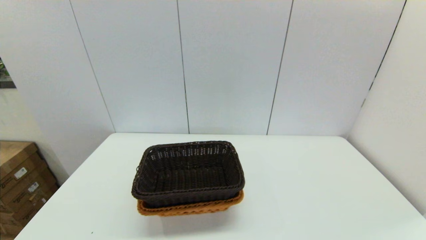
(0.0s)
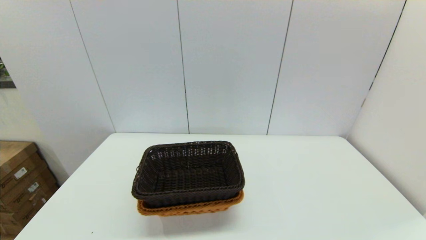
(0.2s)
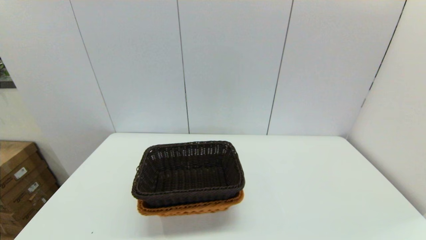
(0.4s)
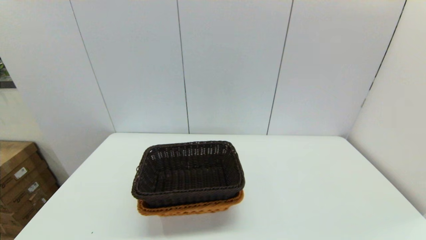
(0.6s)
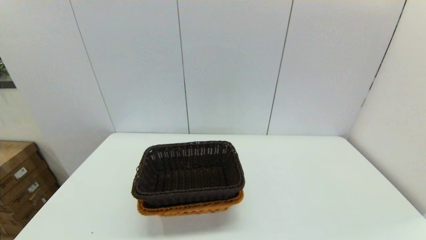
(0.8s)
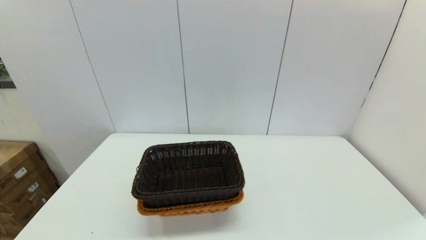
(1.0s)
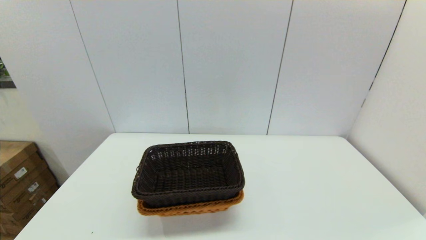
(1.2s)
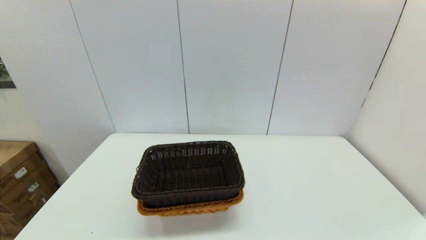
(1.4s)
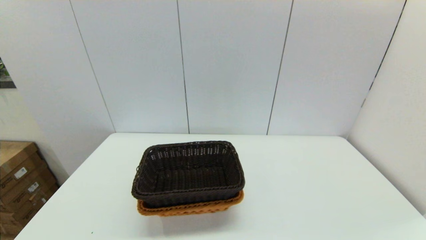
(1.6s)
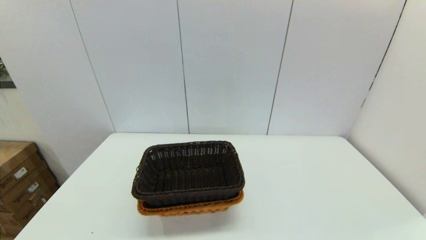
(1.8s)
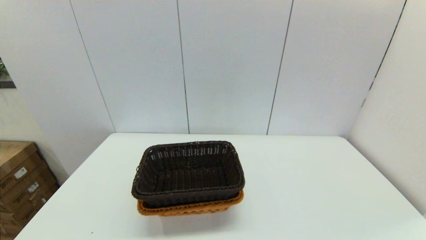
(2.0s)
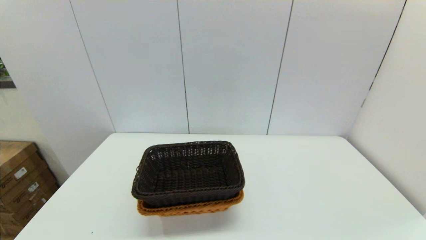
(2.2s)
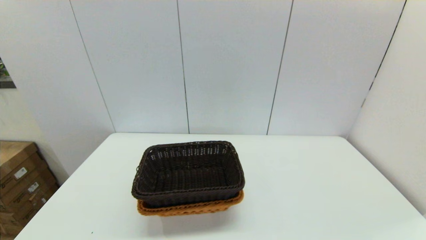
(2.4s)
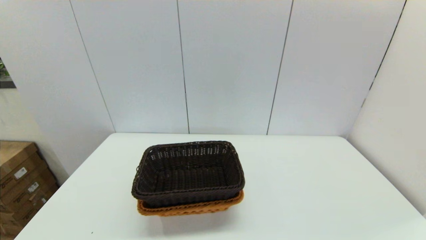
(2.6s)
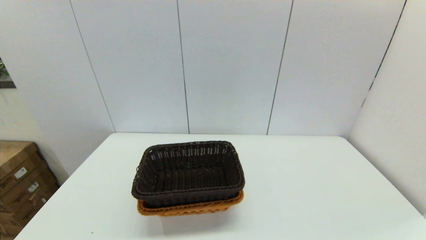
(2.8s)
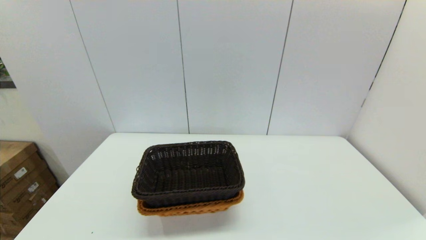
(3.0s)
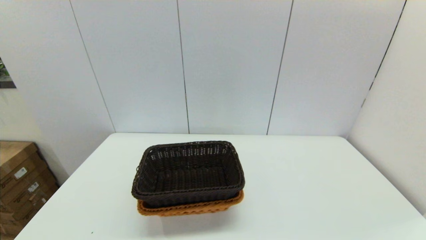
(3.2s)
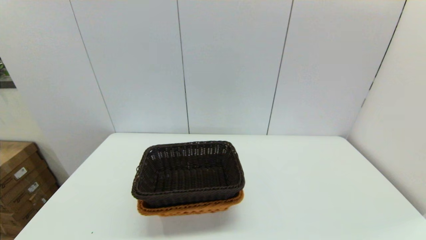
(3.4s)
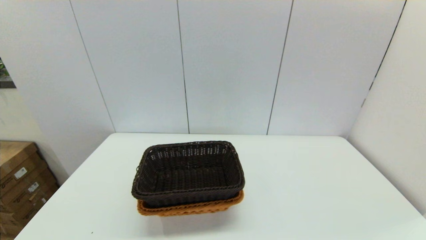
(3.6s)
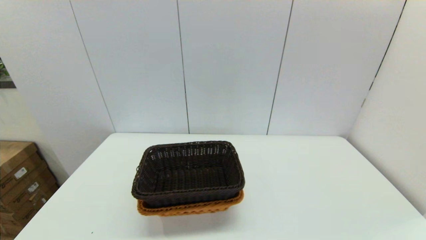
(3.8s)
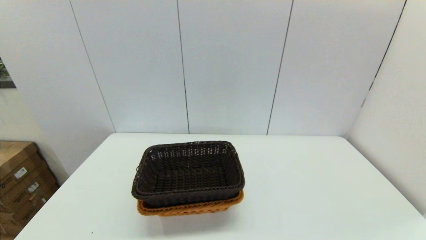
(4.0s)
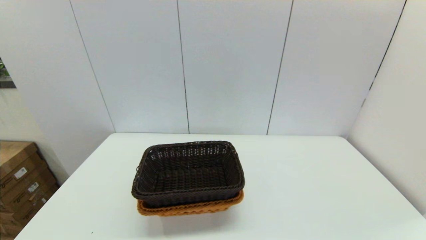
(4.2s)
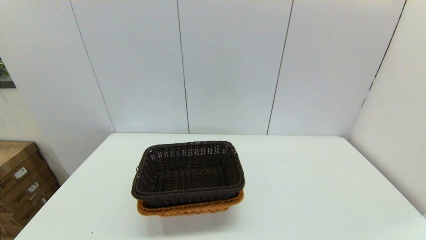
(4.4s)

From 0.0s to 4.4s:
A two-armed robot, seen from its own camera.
Task of the whole recording: stack a basket on top of another basket.
From 1.4s to 3.0s: The two grippers keep their place.
From 3.0s to 4.4s: Neither gripper changes place.
